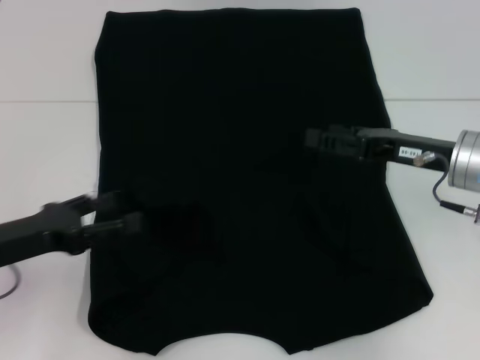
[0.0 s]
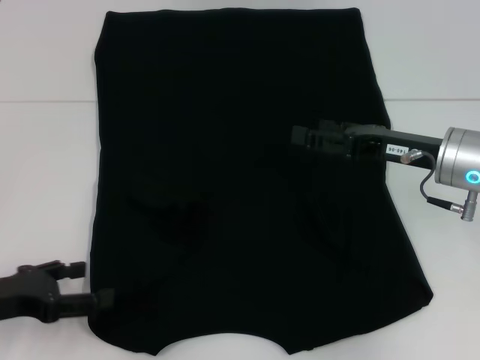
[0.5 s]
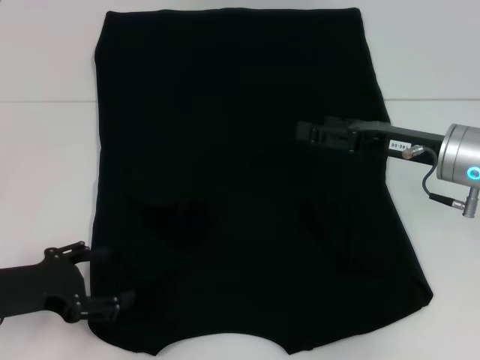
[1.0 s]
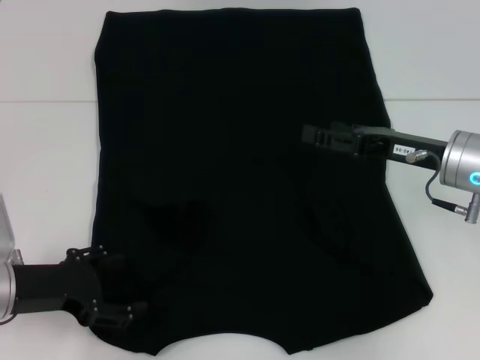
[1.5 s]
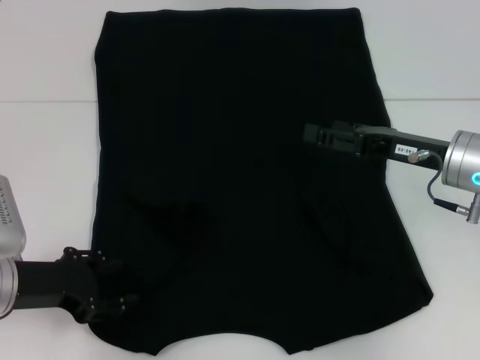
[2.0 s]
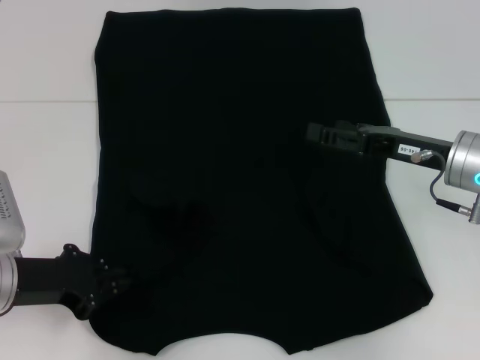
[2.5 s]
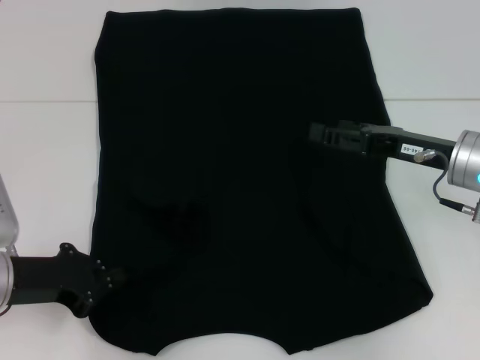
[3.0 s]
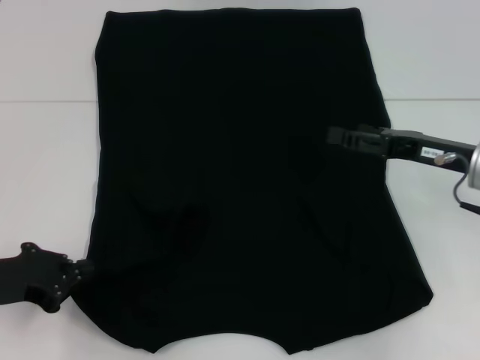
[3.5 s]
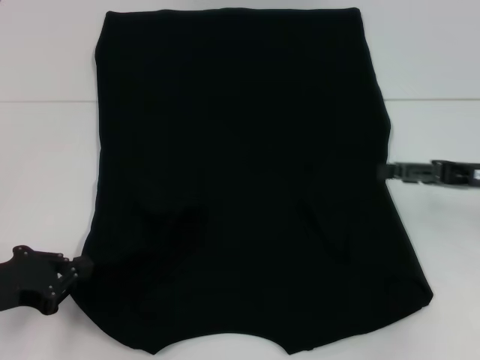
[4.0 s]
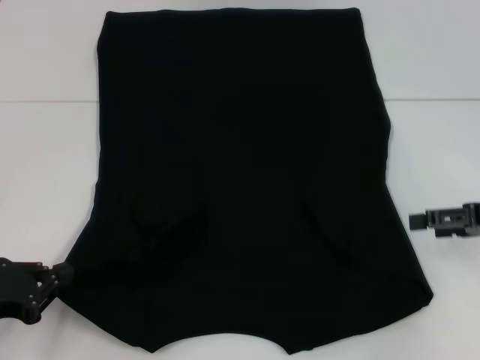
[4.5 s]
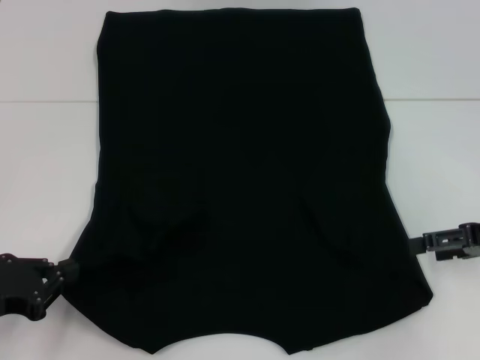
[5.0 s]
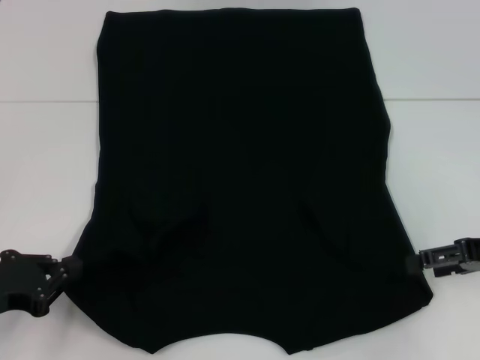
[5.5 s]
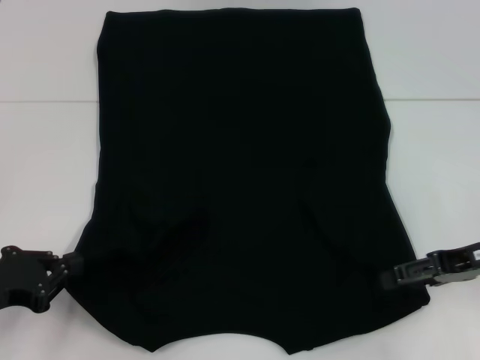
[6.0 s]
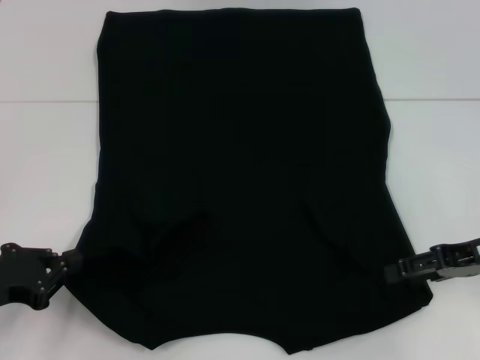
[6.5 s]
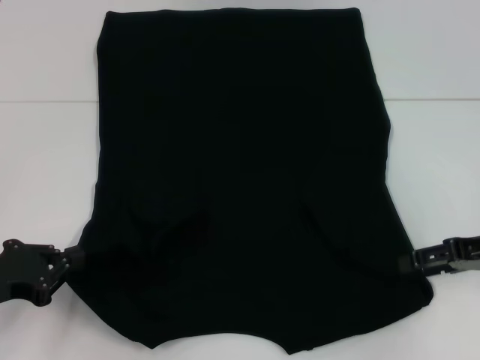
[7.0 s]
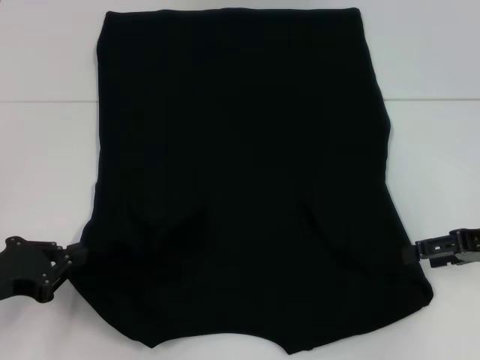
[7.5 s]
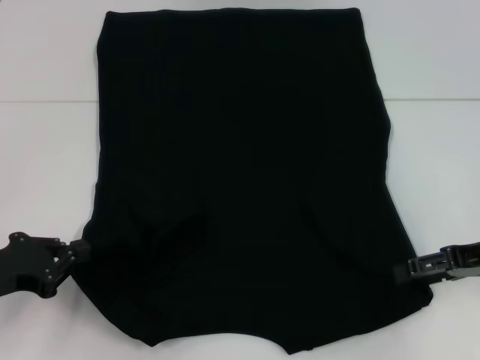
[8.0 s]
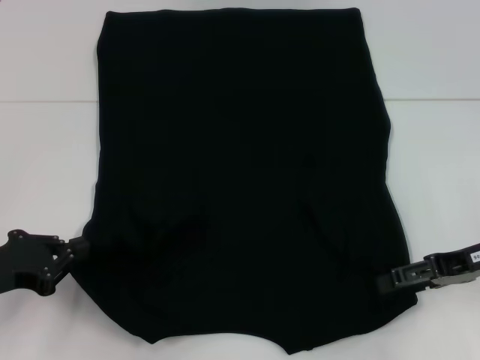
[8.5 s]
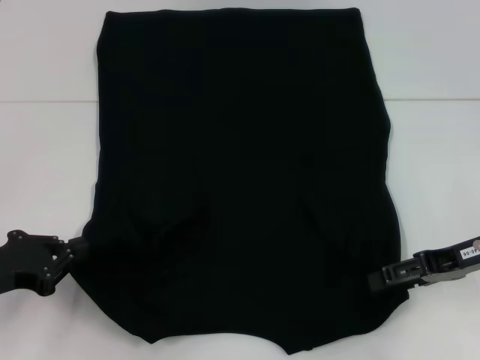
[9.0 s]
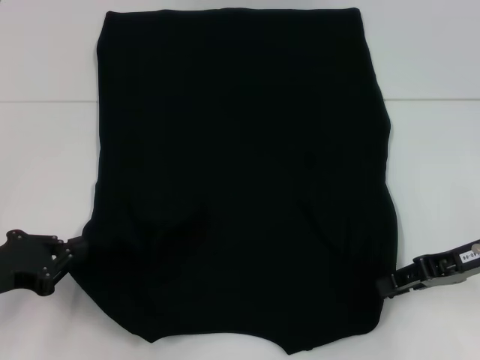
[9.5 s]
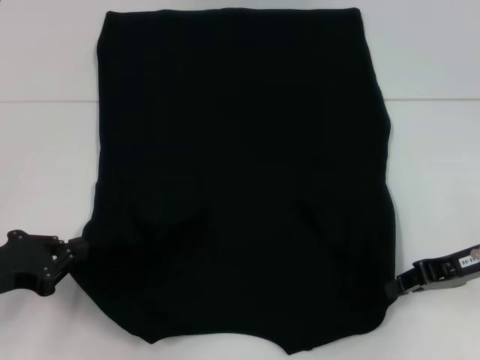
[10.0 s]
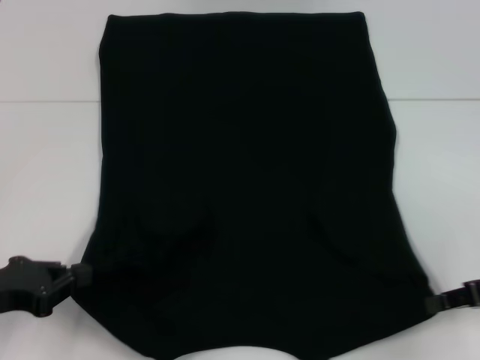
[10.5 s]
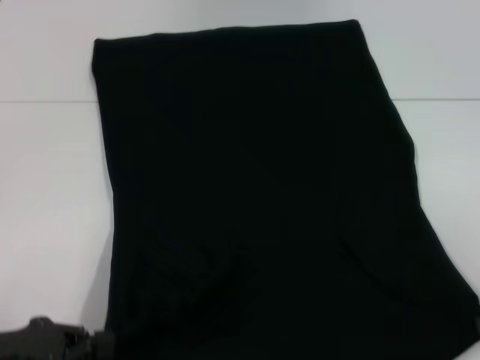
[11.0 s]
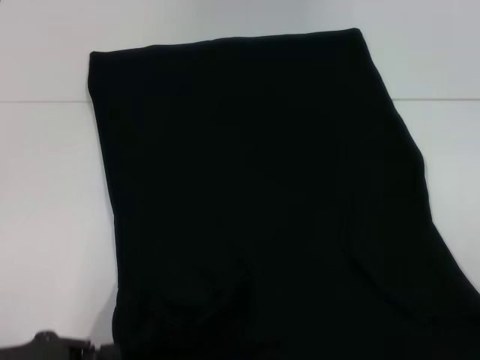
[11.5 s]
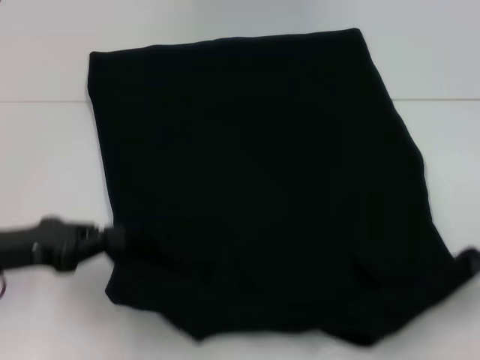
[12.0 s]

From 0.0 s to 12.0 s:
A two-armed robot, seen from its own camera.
Step, from 0.0 s to 3.0 s: Grab the bottom left corner with your left hand.
Step, from 3.5 s to 9.0 s: Grab the bottom right corner with your right hand.
From 0.0 s to 2.0 s: The right gripper opens its fingers.
From 2.0 s to 4.0 s: The left gripper shifts by approximately 5 cm, and closes up. The right gripper heads to the right, covering some 10 cm.
From 6.0 s to 8.0 s: The grippers make only small movements.
From 8.0 s to 10.0 s: The right gripper closes.
From 10.0 s to 12.0 s: The right gripper goes some 10 cm to the right and backward, while the left gripper goes backward and returns, approximately 5 cm each way.

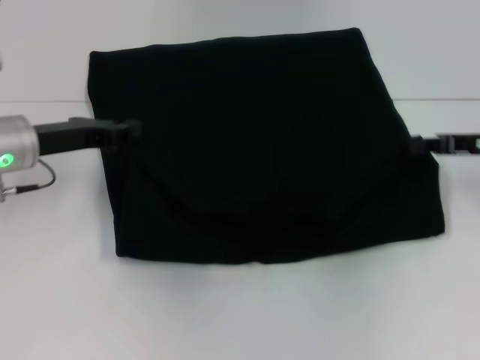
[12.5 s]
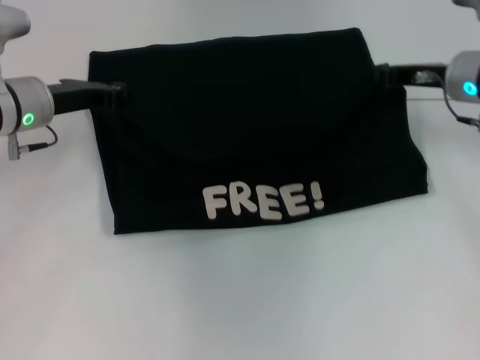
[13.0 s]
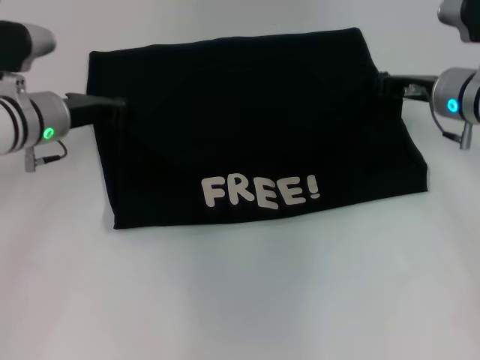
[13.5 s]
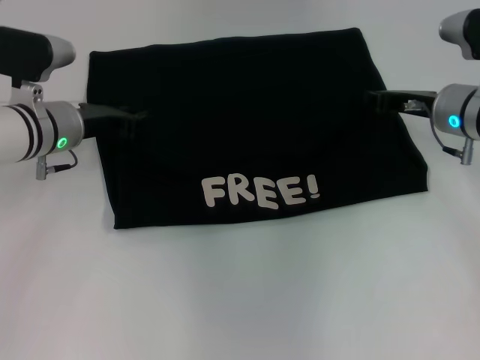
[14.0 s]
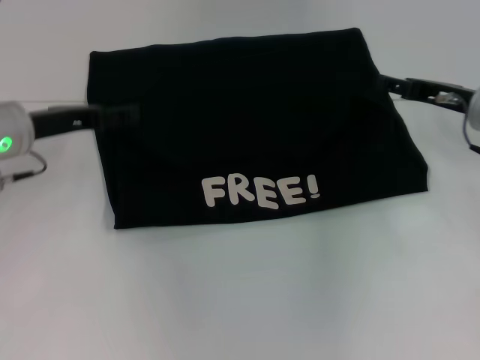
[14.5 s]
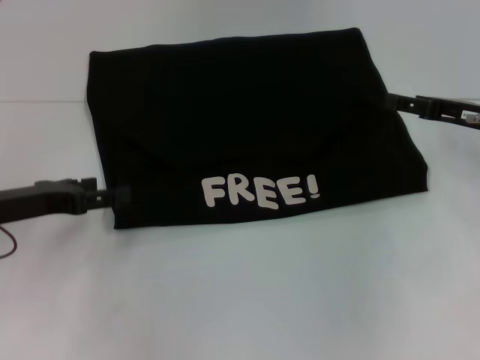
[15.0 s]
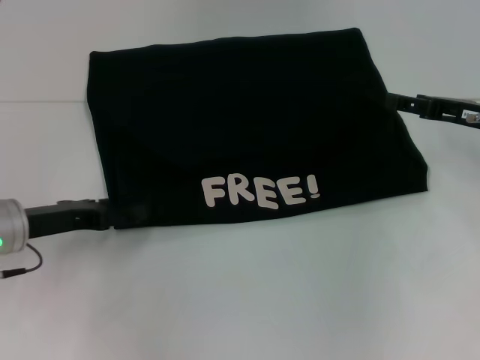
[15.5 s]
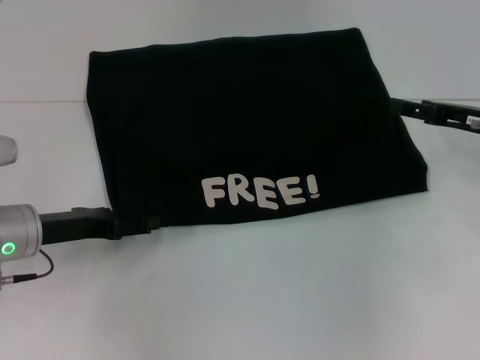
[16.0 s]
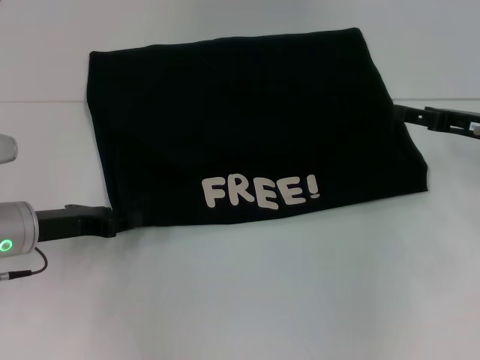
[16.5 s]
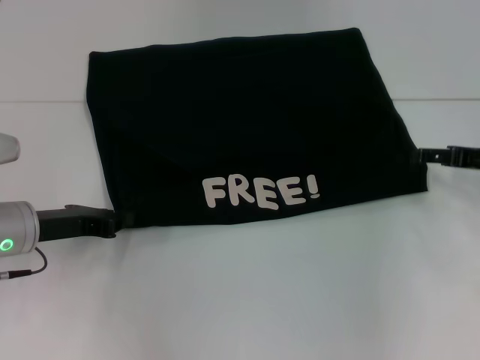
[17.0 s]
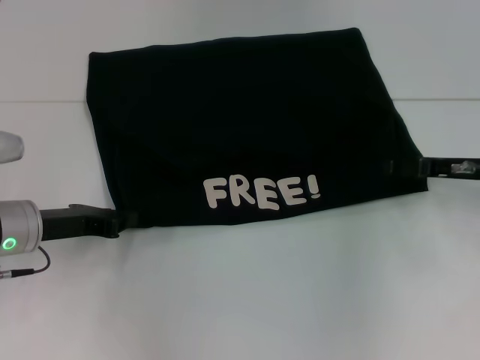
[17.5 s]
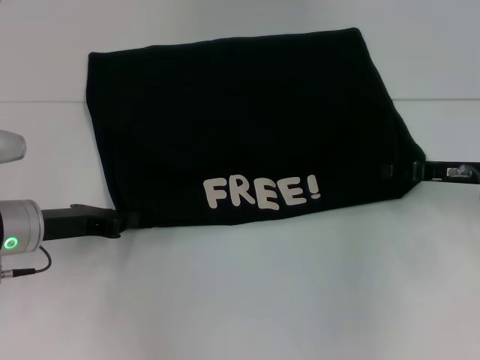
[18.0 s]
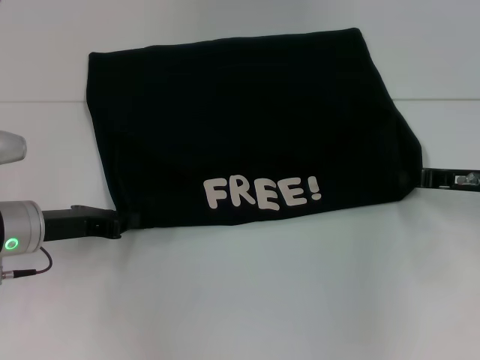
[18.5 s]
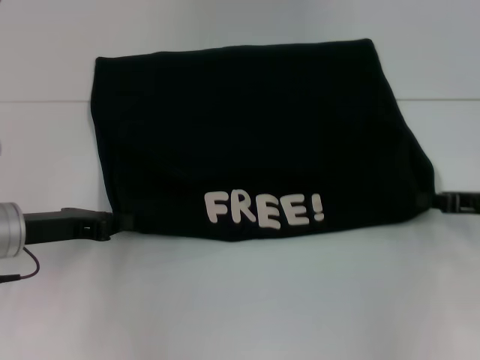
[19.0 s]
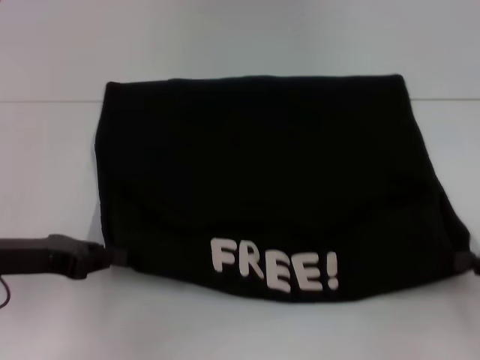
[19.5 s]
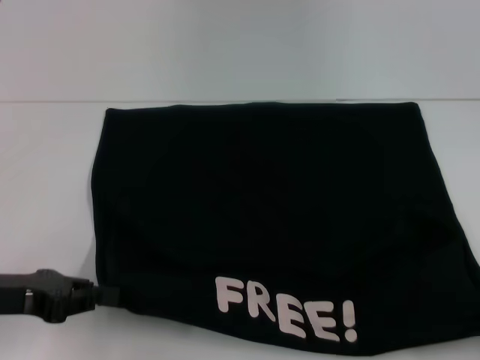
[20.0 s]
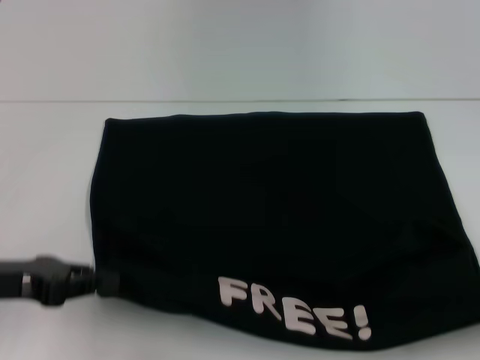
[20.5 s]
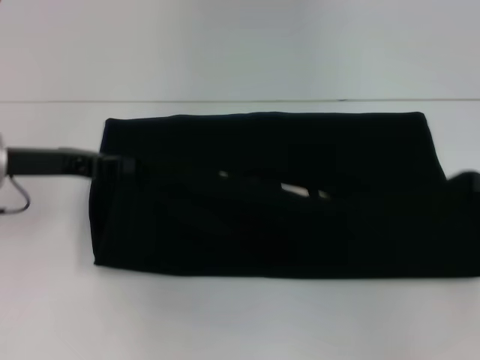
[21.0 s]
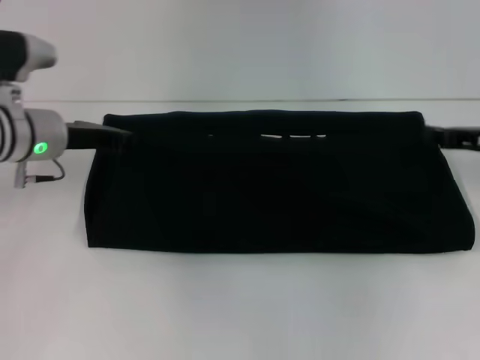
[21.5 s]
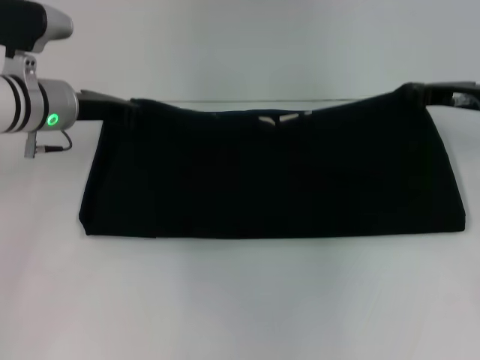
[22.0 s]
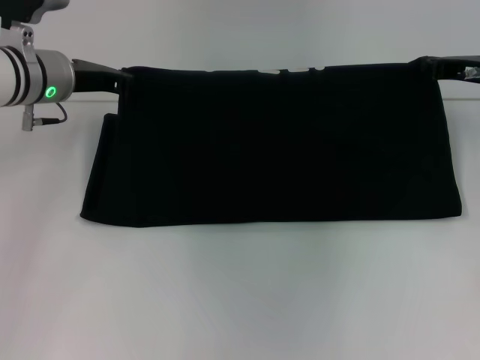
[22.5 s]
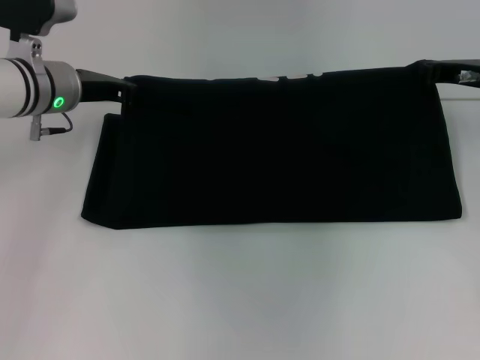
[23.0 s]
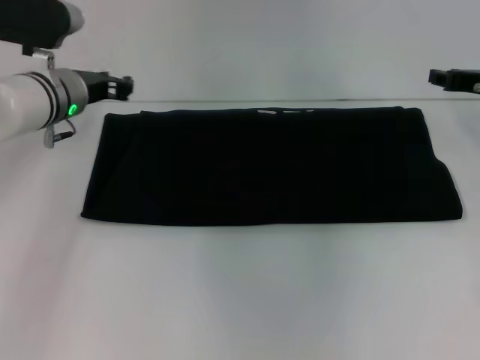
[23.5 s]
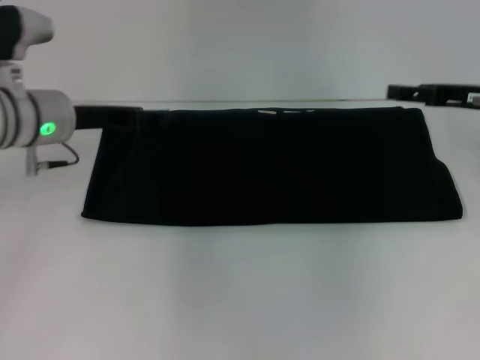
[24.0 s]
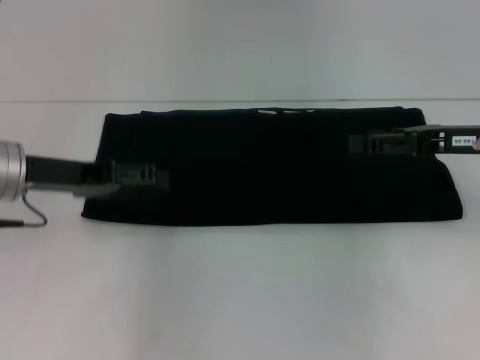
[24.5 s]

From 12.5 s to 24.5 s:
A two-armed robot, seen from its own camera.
Step, from 14.5 s to 19.5 s: Pull the clothes with your left hand.
Step, from 14.5 s to 19.5 s: Pull the clothes with your right hand.
Step, from 20.0 s to 24.0 s: Fold the clothes with your right hand.
From 12.5 s to 14.5 s: The right gripper moves to the left, roughly 5 cm, and opens its fingers. Meanwhile the left gripper opens its fingers.
From 14.5 s to 16.5 s: The left gripper heads backward and downward, covering approximately 10 cm. The right gripper moves approximately 5 cm.
From 16.5 s to 18.5 s: The left gripper closes, while the right gripper closes up.
From 18.5 s to 20.5 s: The right gripper heads backward and to the right, covering some 20 cm; the left gripper travels backward by roughly 10 cm.
From 20.5 s to 22.5 s: The right gripper is displaced forward and to the left by some 30 cm. Meanwhile the left gripper goes some 20 cm forward.
From 22.5 s to 24.5 s: The two grippers go some 10 cm backward. The left gripper opens up; the right gripper opens.

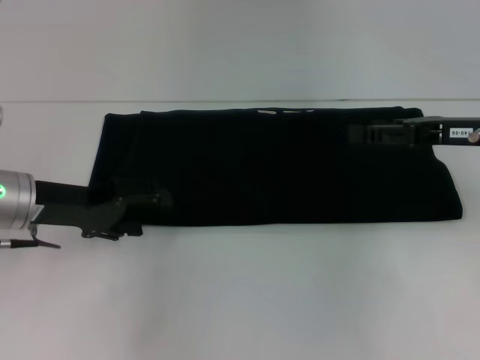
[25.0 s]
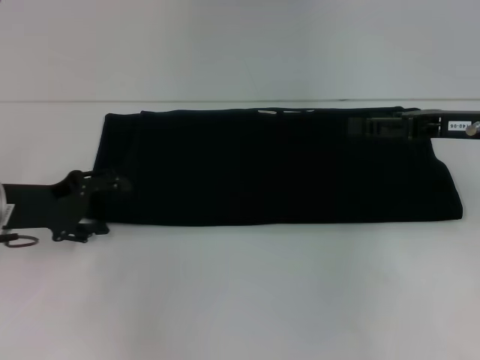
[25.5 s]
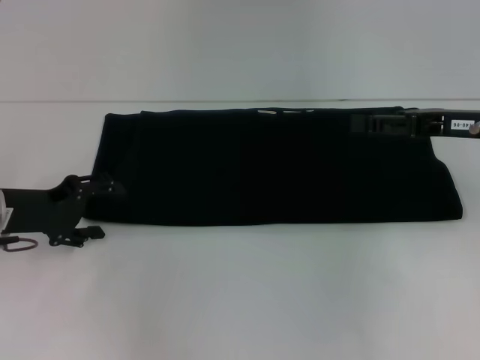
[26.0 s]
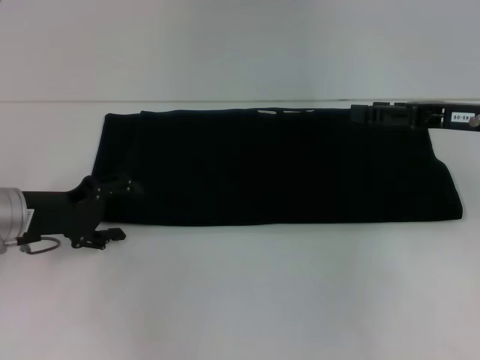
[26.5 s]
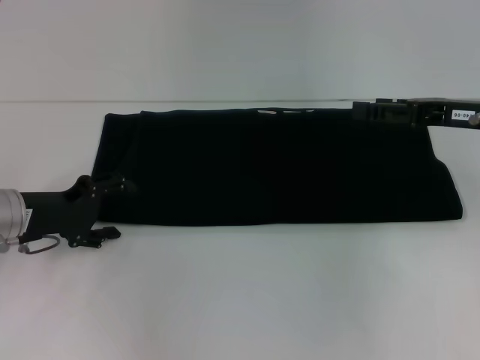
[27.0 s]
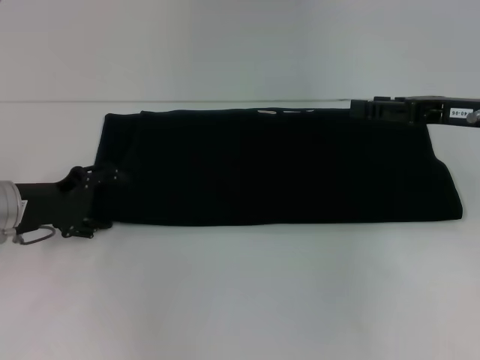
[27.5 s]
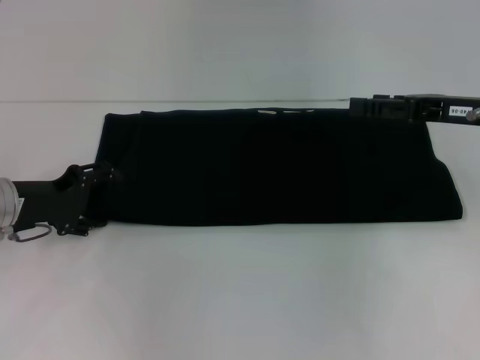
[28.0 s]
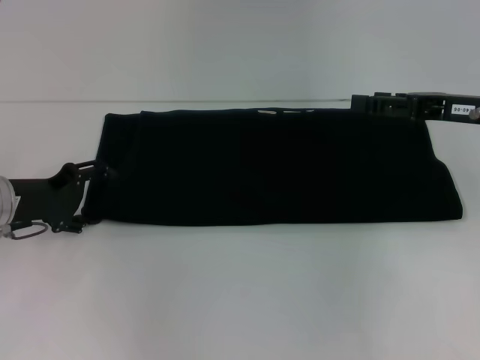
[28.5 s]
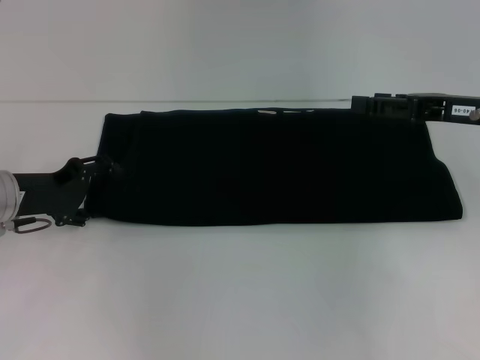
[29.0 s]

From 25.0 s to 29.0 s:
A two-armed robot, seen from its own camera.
From 27.0 s to 29.0 s: There are only small adjustments of the grippers.
